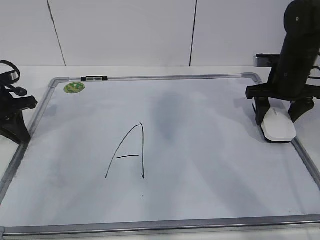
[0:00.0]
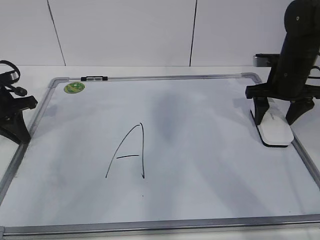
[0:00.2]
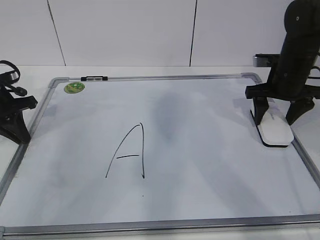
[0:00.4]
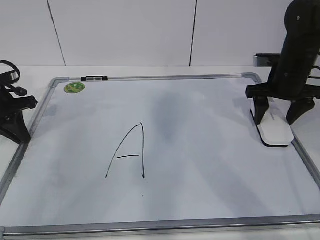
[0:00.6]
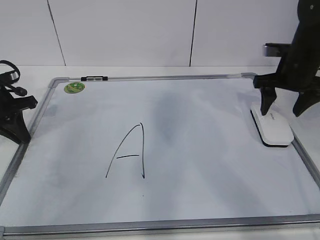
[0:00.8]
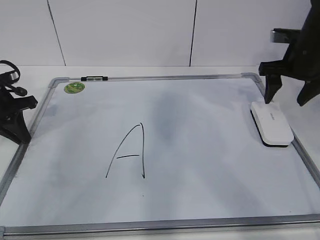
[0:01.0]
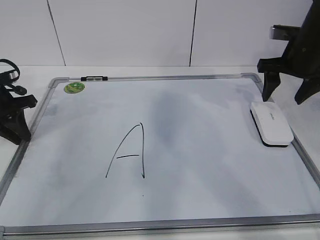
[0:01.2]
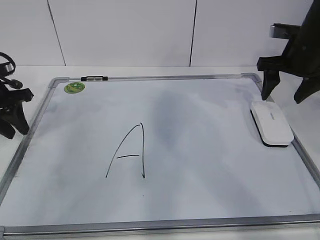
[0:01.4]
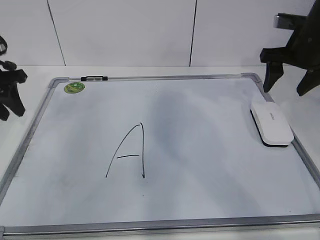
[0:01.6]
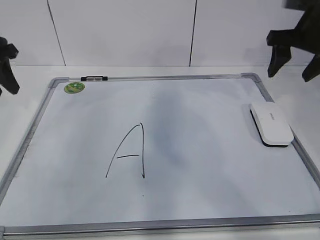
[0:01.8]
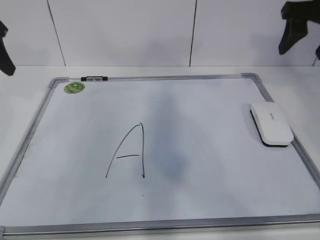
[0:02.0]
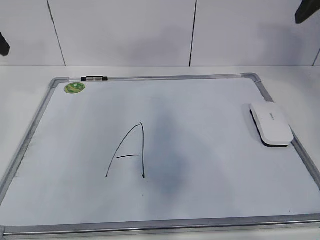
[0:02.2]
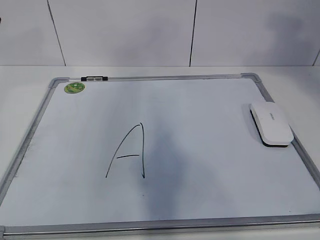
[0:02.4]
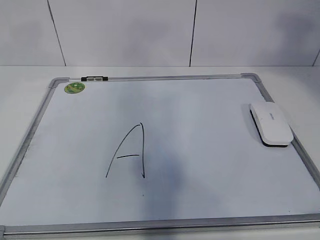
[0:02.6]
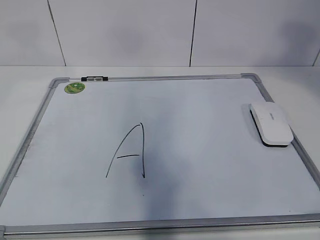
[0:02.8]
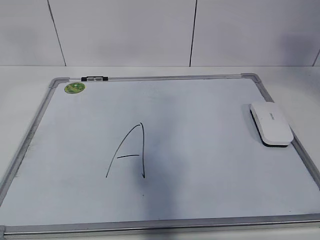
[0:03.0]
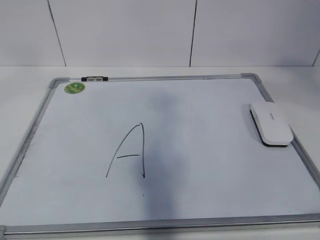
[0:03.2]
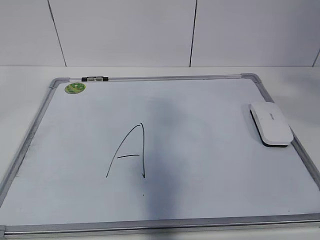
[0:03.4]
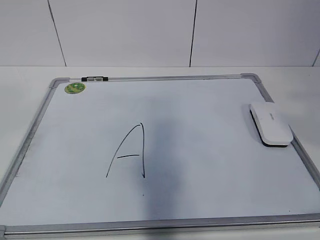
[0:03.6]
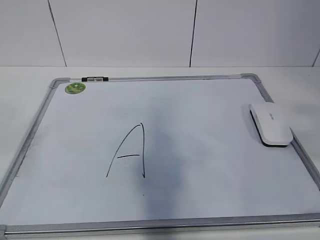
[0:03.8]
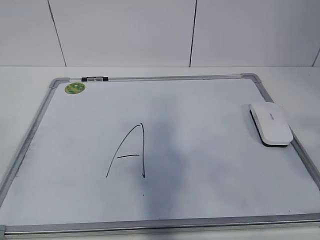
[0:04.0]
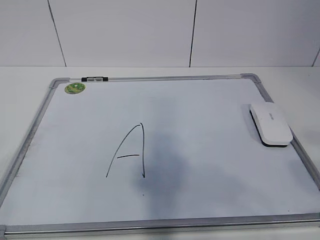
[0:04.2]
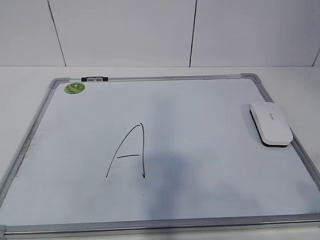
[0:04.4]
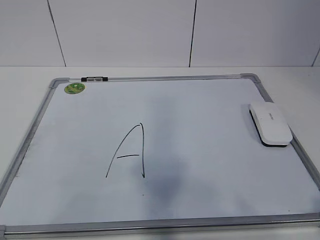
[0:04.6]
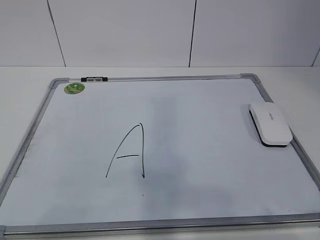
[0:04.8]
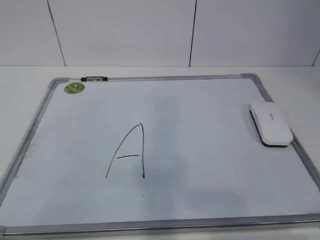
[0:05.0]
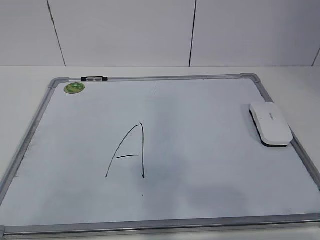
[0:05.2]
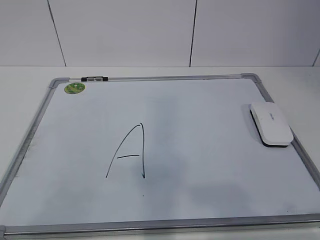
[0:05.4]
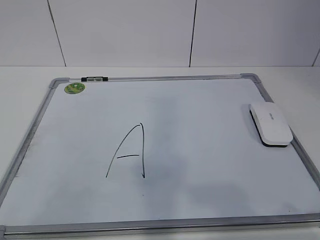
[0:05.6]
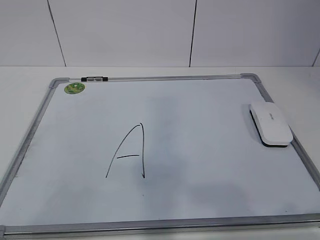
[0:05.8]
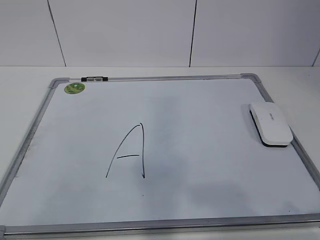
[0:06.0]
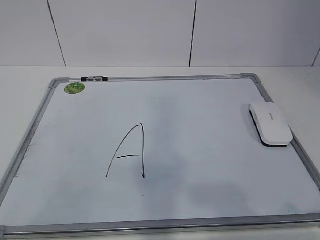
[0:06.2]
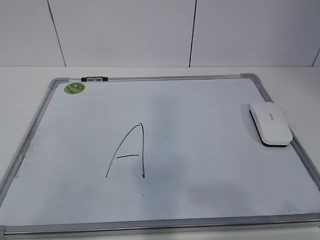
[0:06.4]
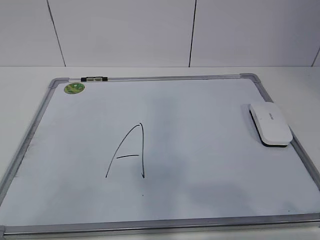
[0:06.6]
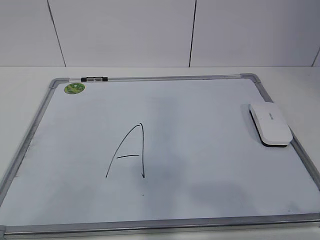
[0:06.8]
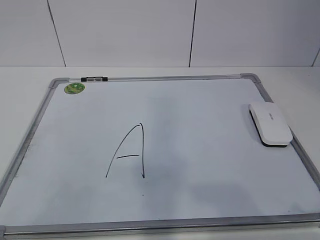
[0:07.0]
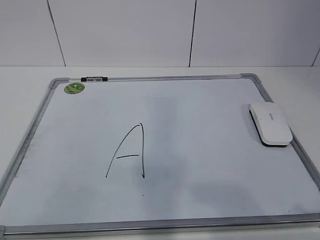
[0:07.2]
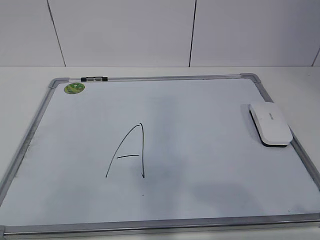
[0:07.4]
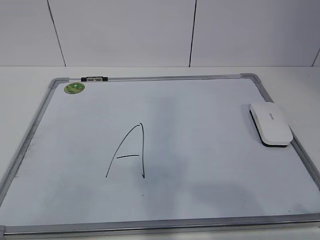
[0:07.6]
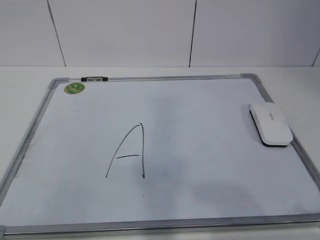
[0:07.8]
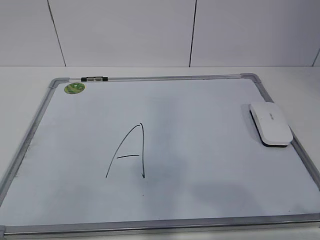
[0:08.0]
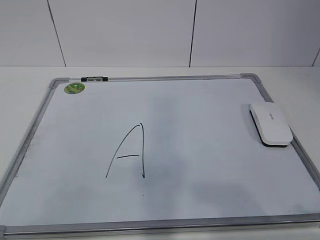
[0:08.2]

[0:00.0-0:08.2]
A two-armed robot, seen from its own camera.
Task of the whole recording: pick up the eraser on the blackboard and erase the letter "a".
0.0 to 1.6 s: The grippers both shift upward by some 5 cm. The left gripper opens up. The right gripper opens.
1.6 to 3.2 s: The right gripper travels backward and upward by roughly 40 cm. Meanwhile the left gripper goes approximately 40 cm upward and backward, and opens its fingers.
3.2 to 5.0 s: Both grippers move downward and backward, approximately 25 cm.

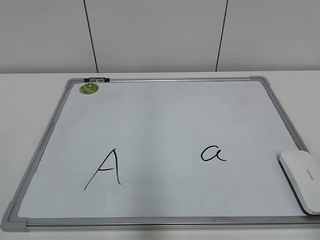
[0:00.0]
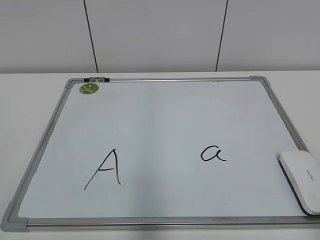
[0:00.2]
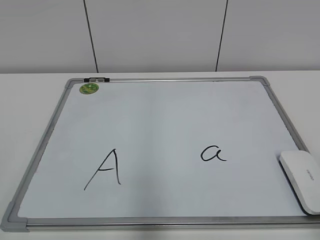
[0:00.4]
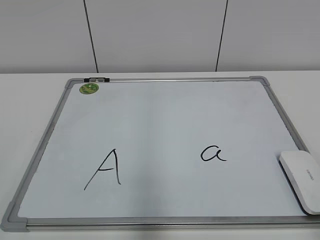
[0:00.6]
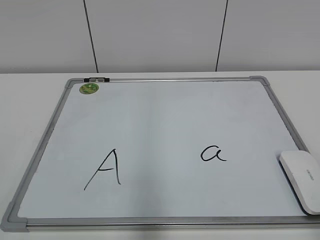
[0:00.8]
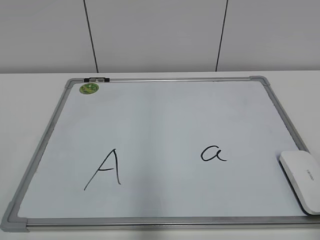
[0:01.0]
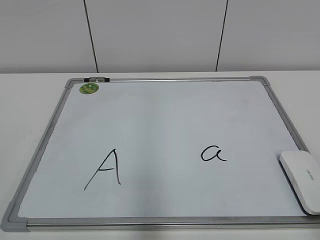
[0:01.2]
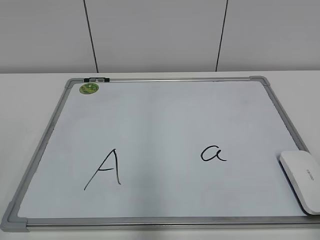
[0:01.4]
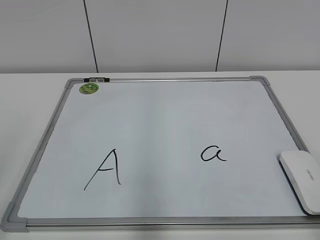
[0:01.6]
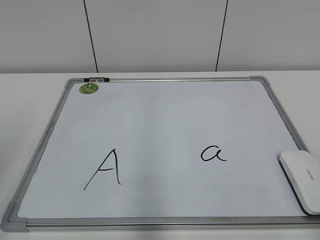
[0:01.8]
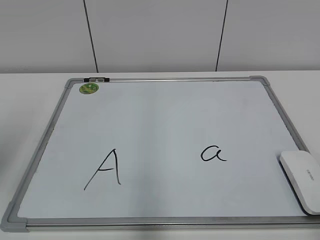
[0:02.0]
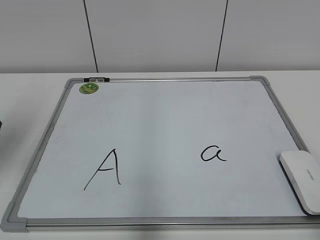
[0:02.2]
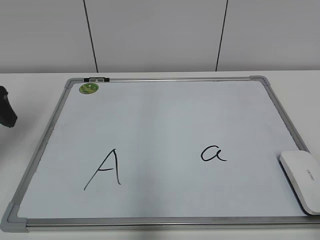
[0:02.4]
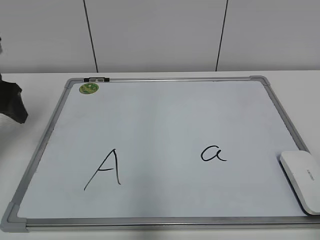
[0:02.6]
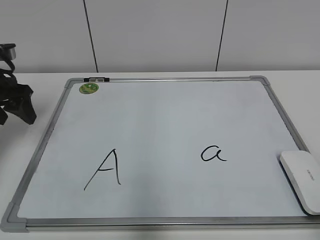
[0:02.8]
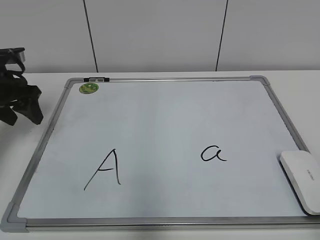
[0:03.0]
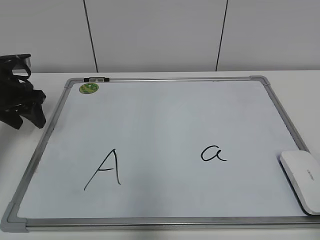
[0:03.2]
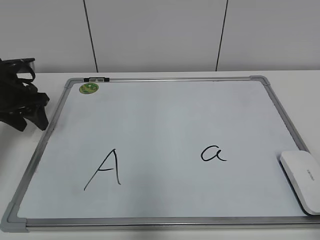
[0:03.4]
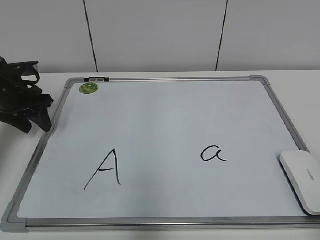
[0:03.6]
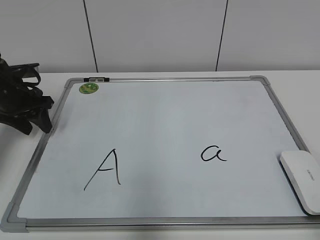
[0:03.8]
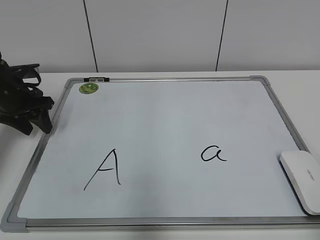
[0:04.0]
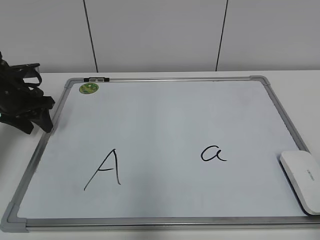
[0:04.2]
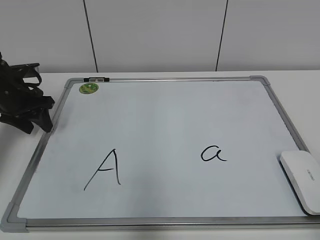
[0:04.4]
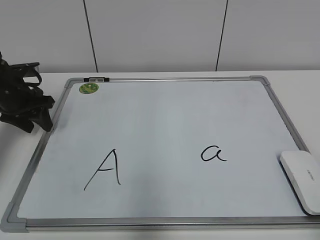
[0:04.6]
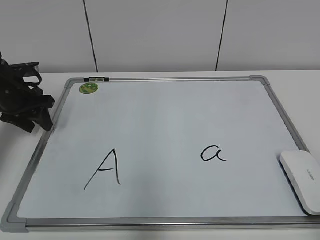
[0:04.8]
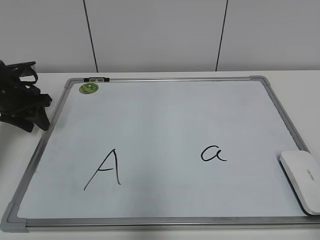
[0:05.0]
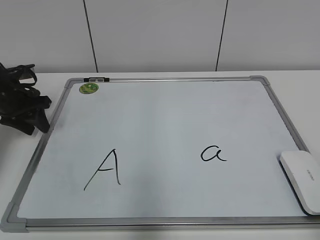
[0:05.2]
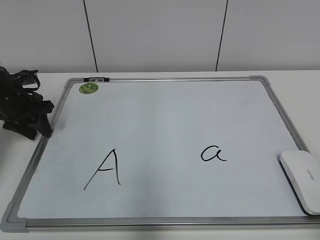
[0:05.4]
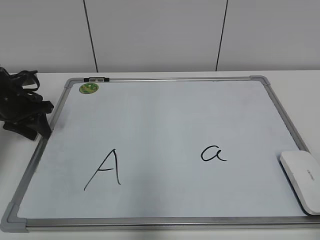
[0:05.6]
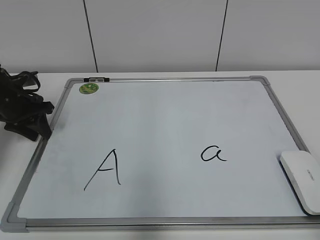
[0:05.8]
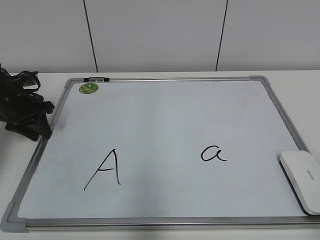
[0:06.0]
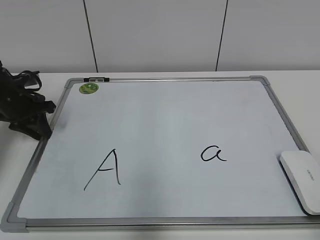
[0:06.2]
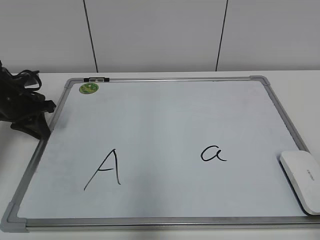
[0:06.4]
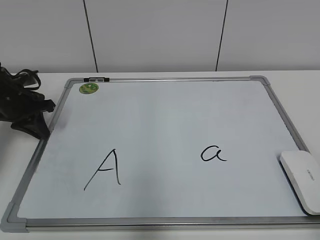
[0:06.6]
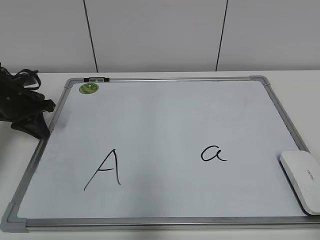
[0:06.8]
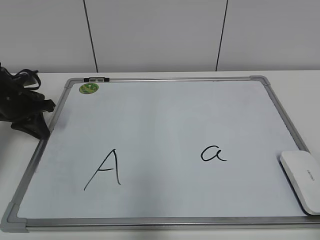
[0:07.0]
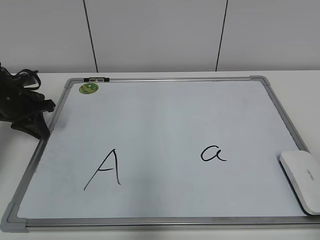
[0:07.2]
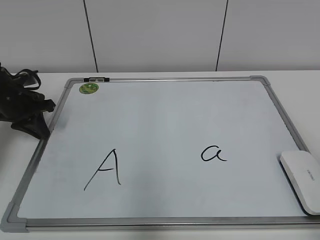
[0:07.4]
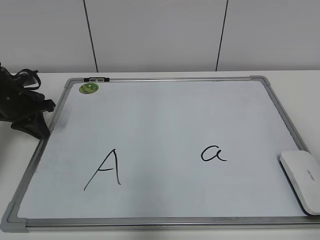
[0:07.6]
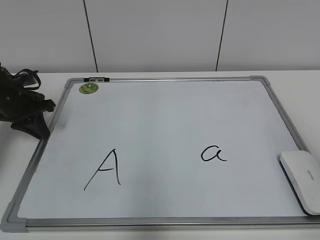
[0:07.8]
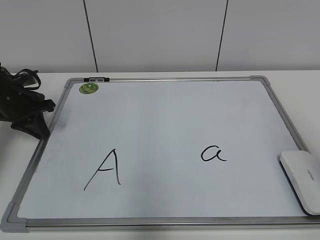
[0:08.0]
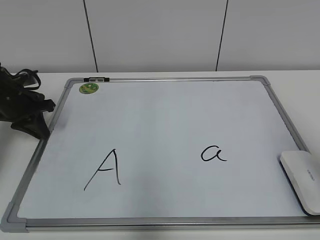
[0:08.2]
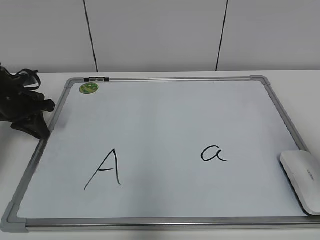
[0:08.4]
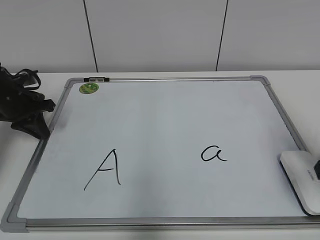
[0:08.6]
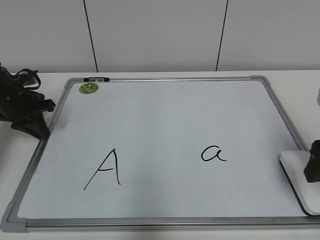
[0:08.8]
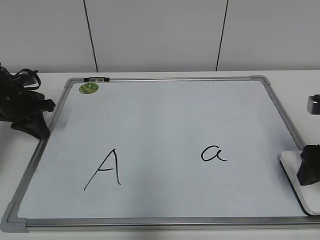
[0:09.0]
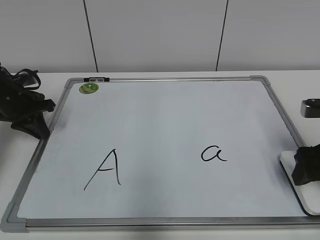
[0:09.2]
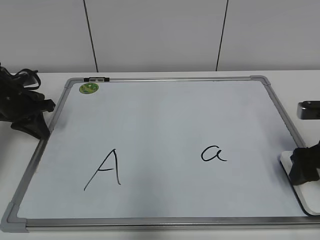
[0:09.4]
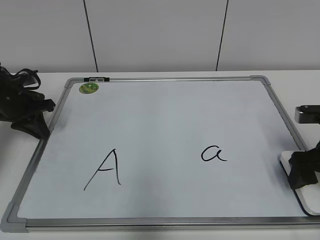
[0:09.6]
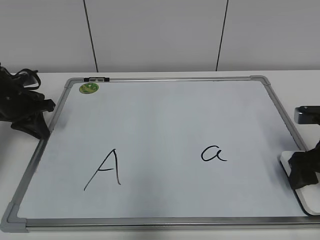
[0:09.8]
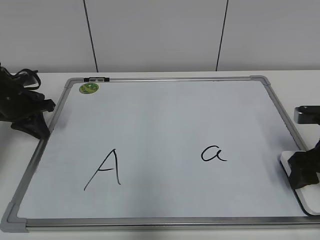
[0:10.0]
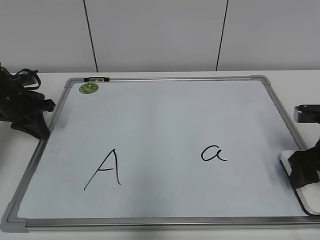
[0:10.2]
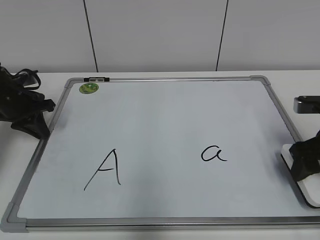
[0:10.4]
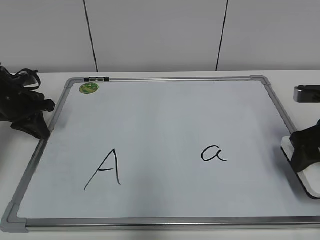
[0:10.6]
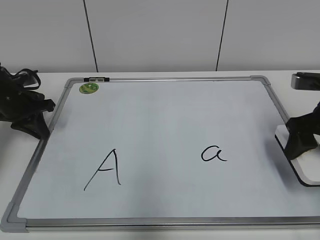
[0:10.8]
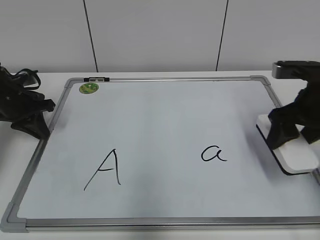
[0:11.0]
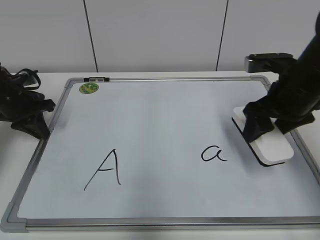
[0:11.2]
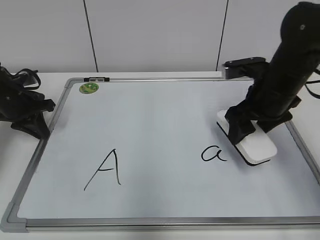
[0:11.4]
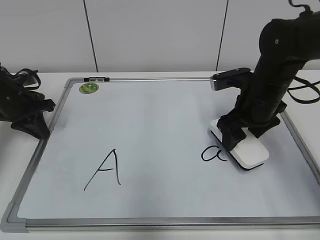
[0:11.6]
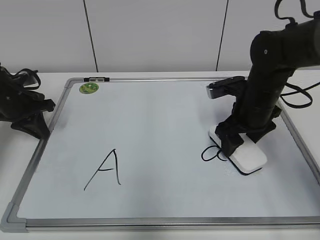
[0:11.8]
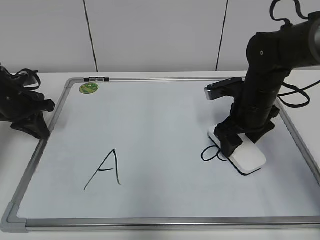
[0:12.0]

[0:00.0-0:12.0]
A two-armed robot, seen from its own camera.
Task of the whole recording: pick up the eraser on the blackboard and erase the letter "a".
Step, 0.0 to 6.6 s: Hold the drawing board steady with your left hand.
1.6 to 3.0 s: The left gripper goes some 30 cm forward.
3.0 to 4.4 s: The left gripper changes place by roughly 5 cm.
4.4 to 6.0 s: There are only small adjustments of the grippers.
6.0 to 7.6 s: The left gripper closes up.
7.6 to 9.0 s: The right gripper travels forward and downward by about 20 cm, and opens up.
9.0 to 10.4 s: The right gripper closes its fingers.
10.4 to 12.0 s: The right gripper is displaced to the left and forward by about 15 cm.

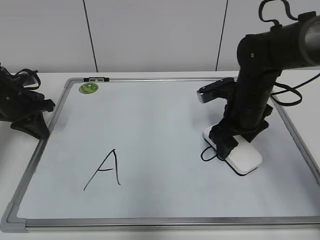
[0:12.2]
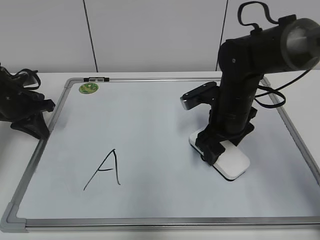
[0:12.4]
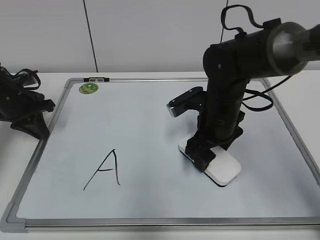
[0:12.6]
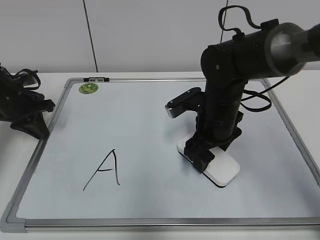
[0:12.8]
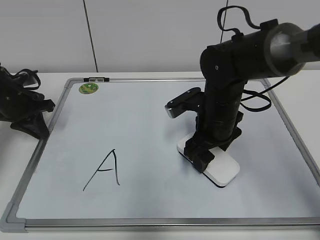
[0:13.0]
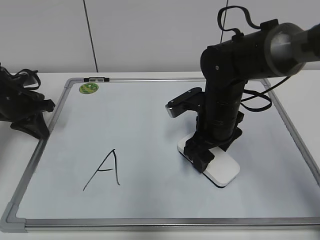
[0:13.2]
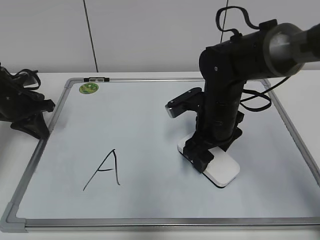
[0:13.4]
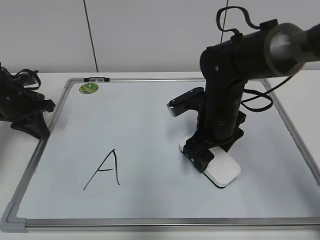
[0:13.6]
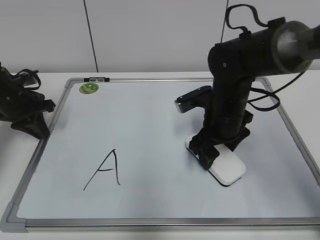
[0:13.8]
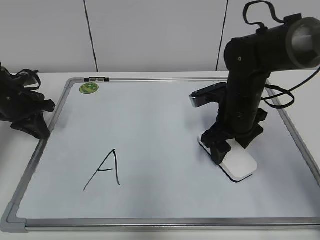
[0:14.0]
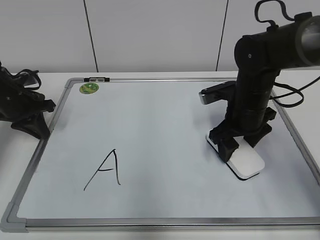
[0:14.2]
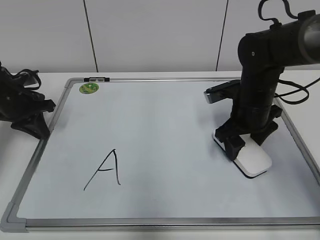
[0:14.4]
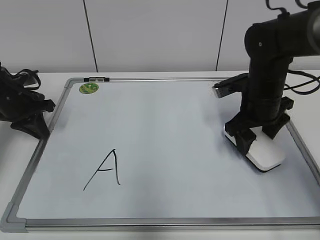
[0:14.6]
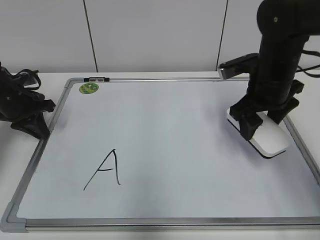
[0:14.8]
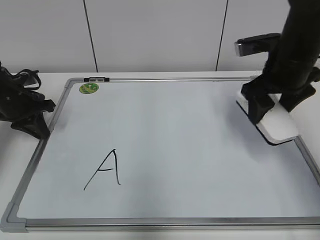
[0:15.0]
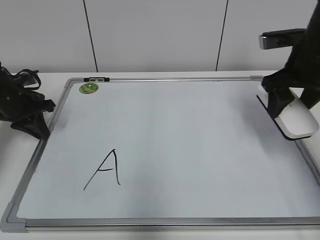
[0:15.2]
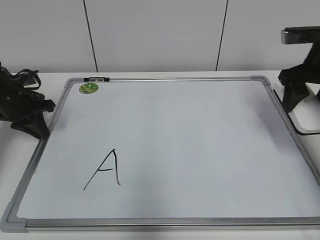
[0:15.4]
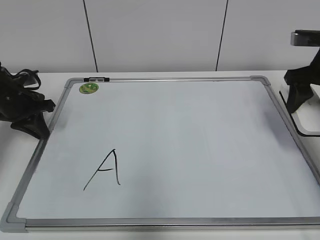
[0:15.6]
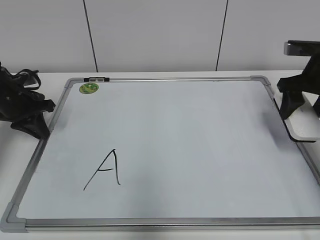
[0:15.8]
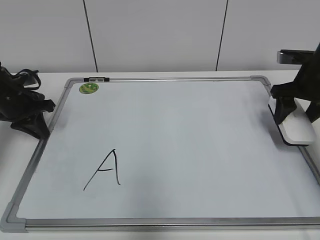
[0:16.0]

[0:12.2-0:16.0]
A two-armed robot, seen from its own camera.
Task of the whole recording: pick up the eraser on the blackboard and erase the letter "a".
Step, 12.2 to 14.2 s: Erase the letter a with your right hand.
12.2 to 13.4 s: The right gripper heads to the left, covering about 5 cm.
13.4 to 14.8 s: The right gripper heads to the right and upward, covering roughly 10 cm.
14.8 to 16.0 s: The right gripper is displaced to the right by some 10 cm.
